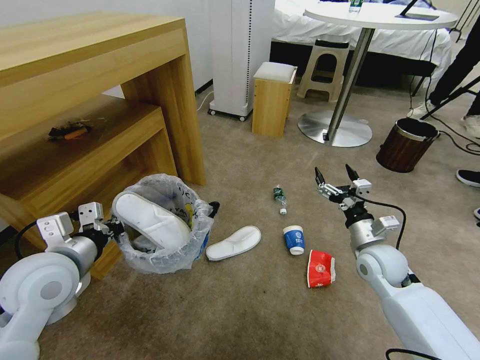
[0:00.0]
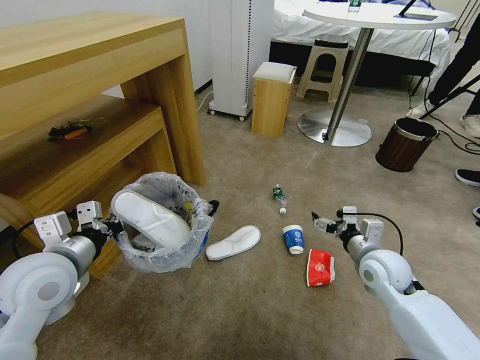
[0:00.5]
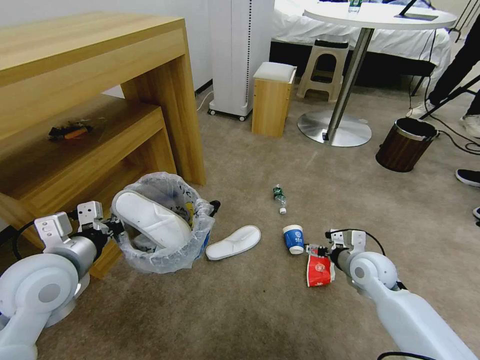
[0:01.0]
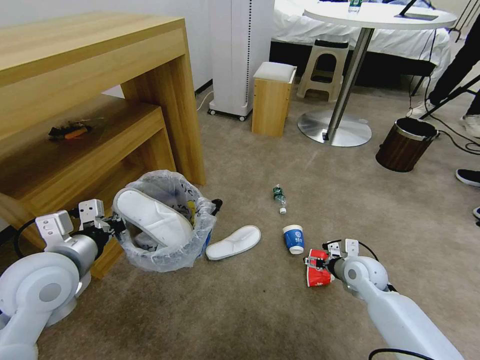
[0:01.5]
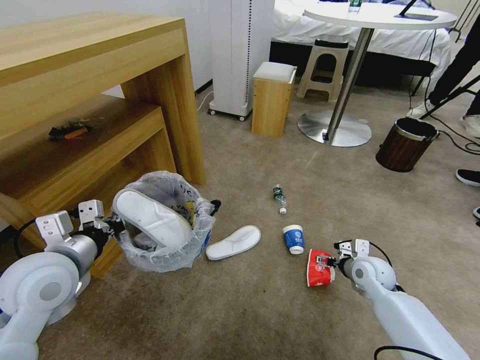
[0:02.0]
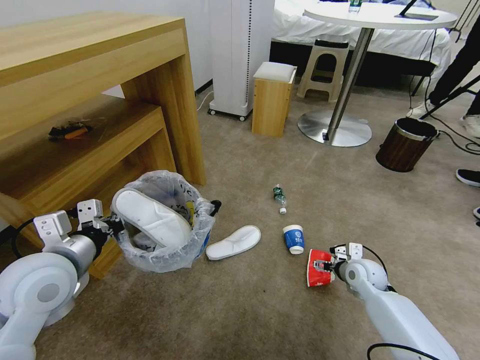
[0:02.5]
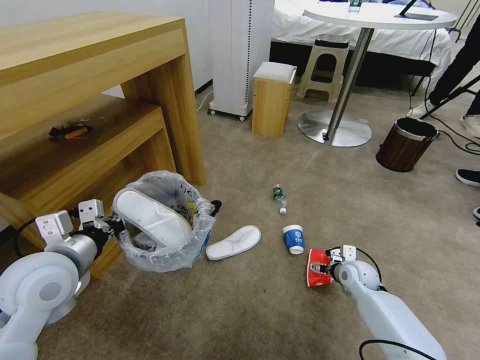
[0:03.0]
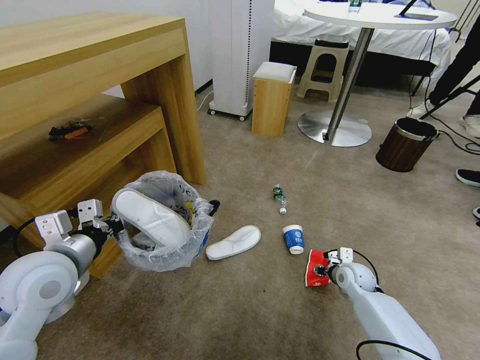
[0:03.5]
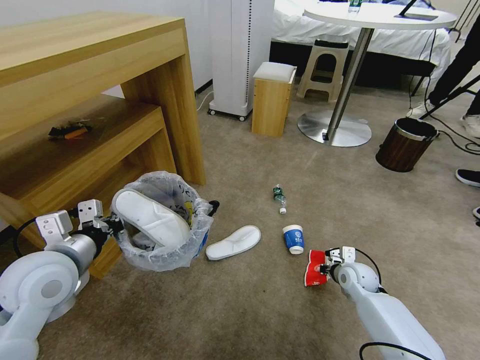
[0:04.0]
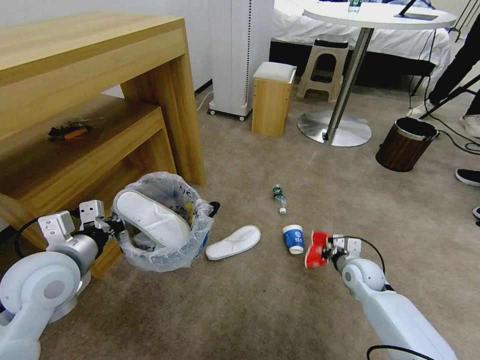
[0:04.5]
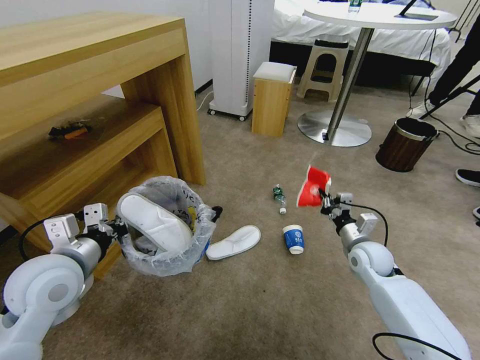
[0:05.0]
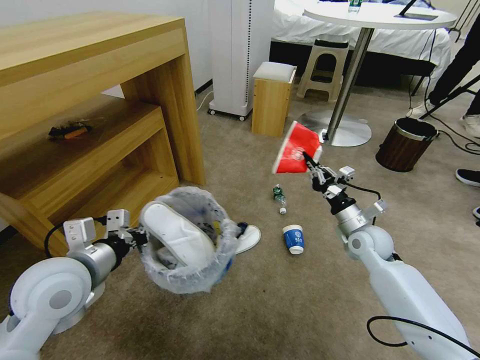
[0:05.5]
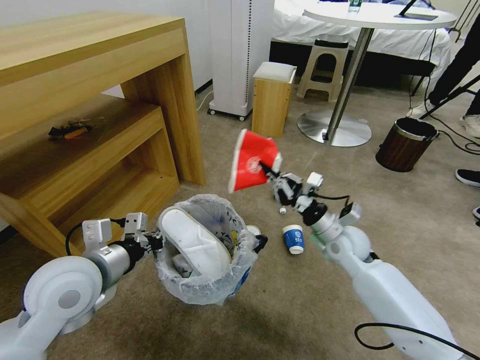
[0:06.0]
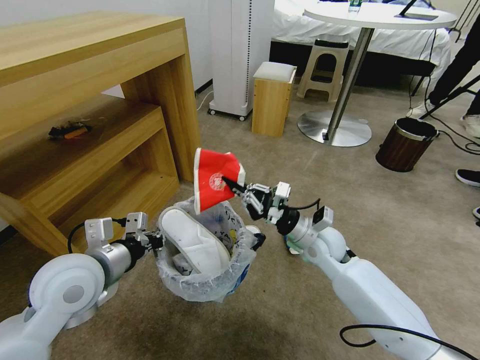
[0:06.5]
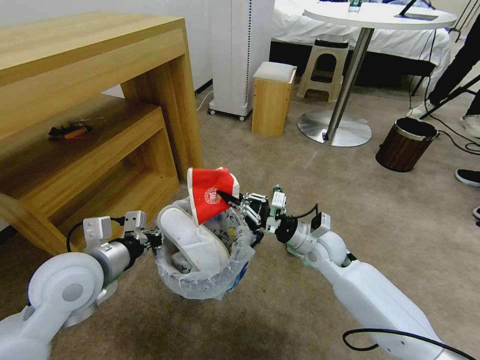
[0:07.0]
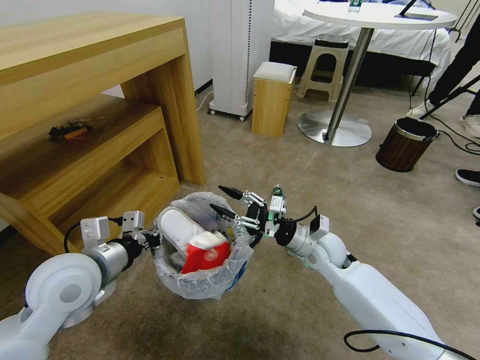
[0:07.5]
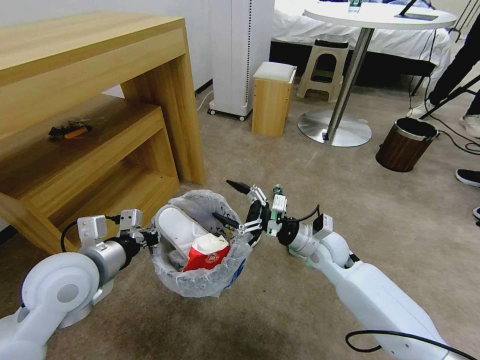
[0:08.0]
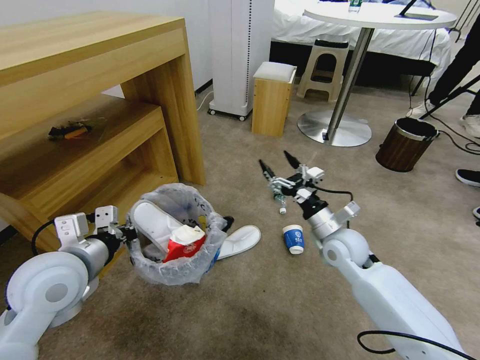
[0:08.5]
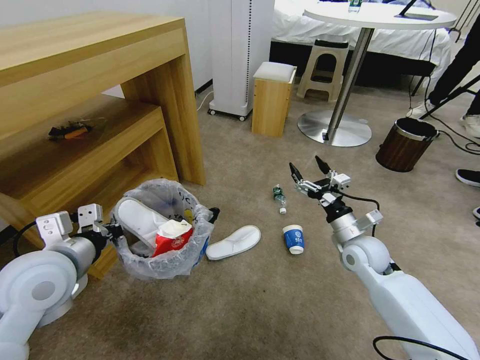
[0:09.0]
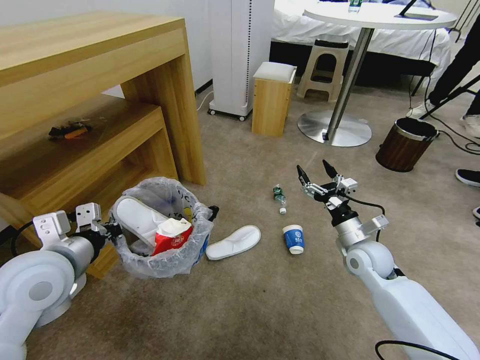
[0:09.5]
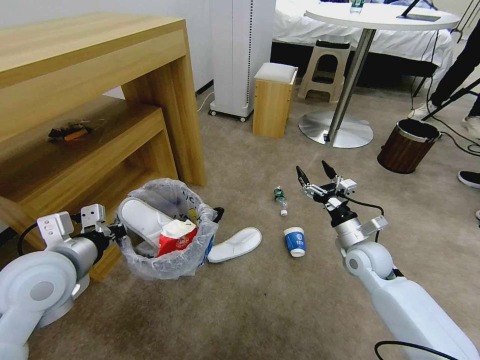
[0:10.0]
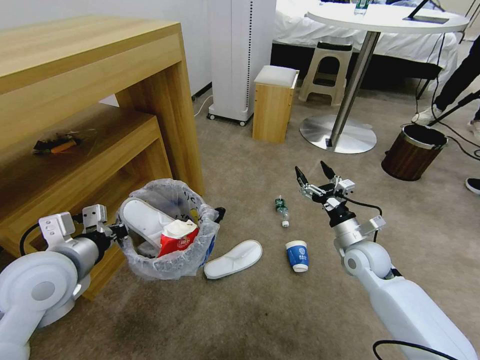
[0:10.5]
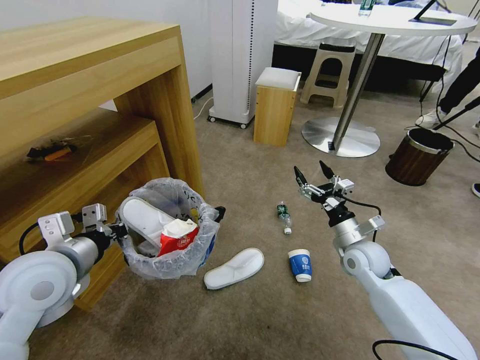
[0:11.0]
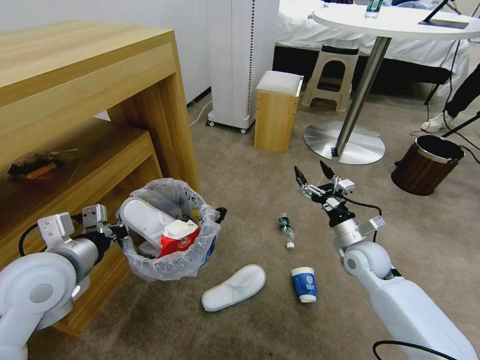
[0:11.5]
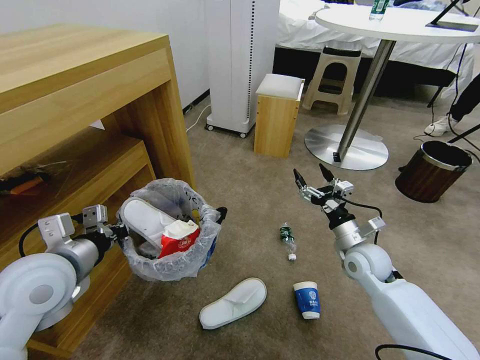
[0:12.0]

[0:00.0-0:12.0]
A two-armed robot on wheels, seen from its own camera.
Task of the whole recording: Pick up the trash bin and place the garbage on the floor into it.
0.0 to 2.0 s: The right gripper shifts approximately 10 cm downward.
2.0 to 4.0 s: The right gripper goes about 5 cm downward, and closes.
4.0 to 6.0 s: The right gripper moves upward and to the left, some 15 cm.
6.0 to 8.0 s: The right gripper opens its fingers.
8.0 to 10.0 s: The right gripper travels to the right by approximately 10 cm.

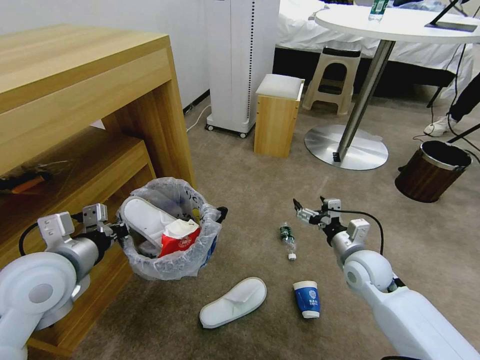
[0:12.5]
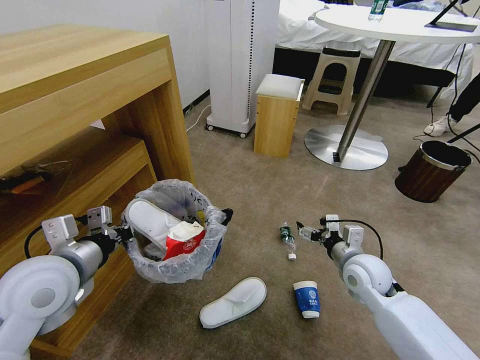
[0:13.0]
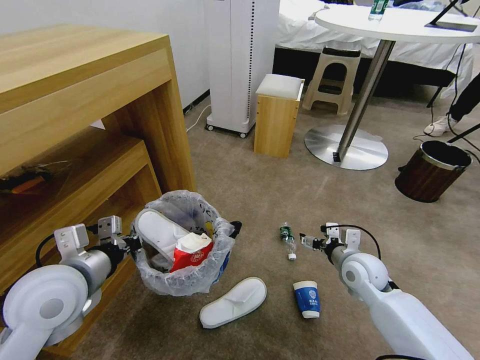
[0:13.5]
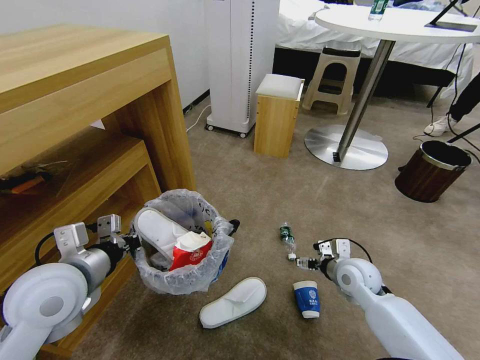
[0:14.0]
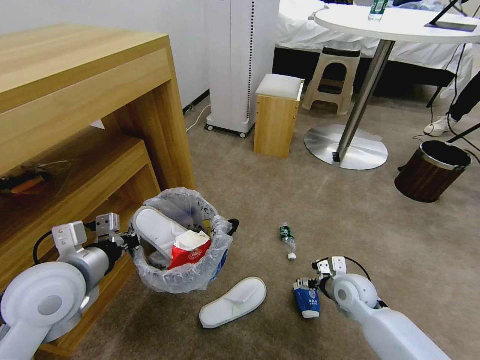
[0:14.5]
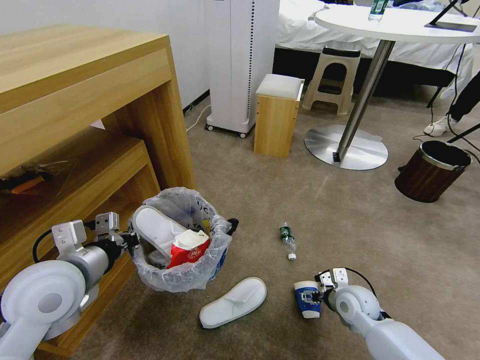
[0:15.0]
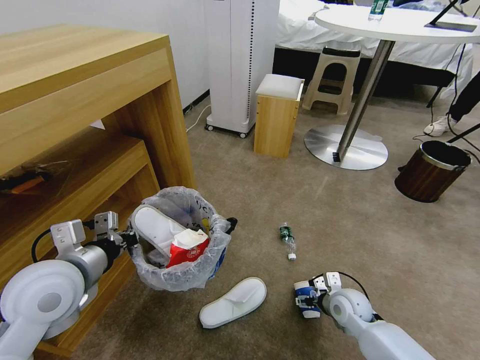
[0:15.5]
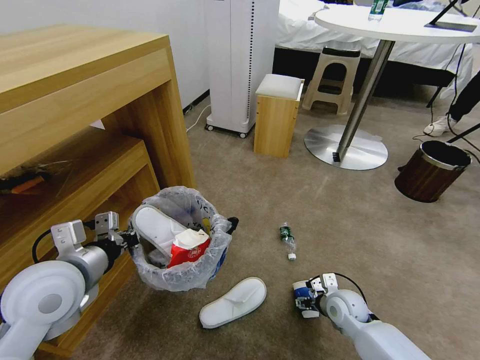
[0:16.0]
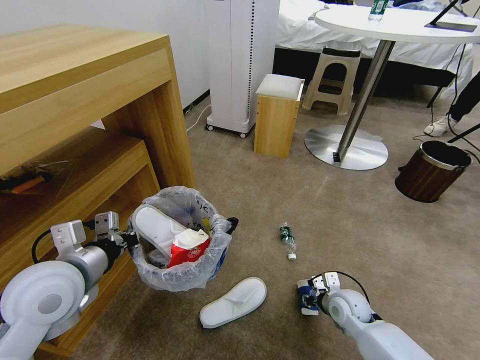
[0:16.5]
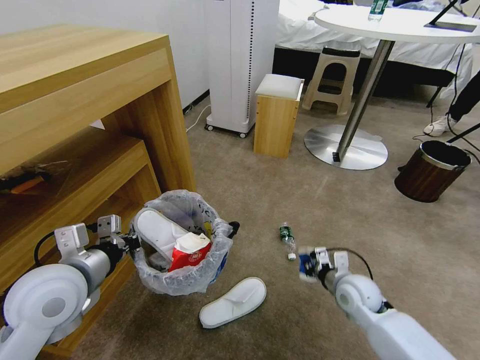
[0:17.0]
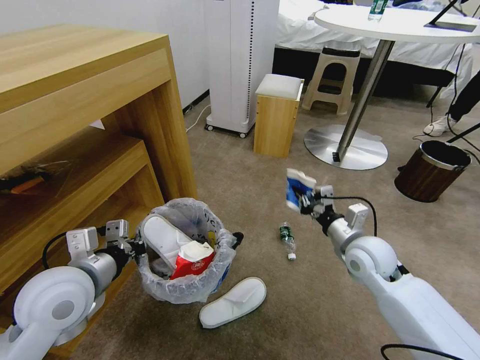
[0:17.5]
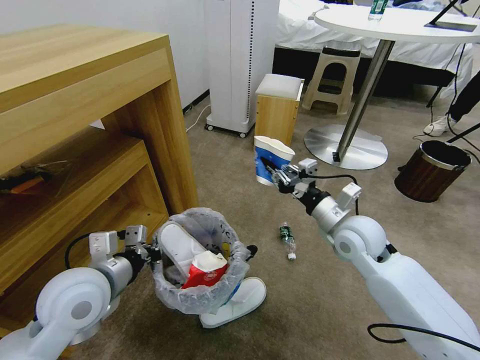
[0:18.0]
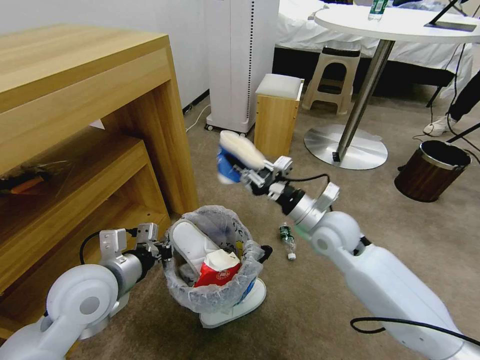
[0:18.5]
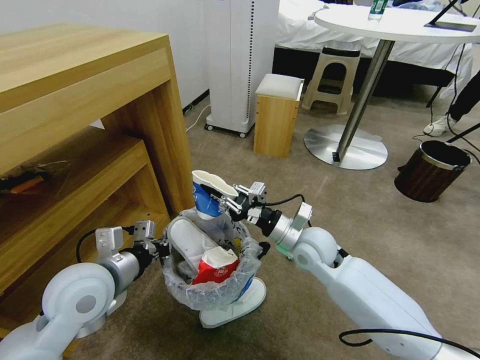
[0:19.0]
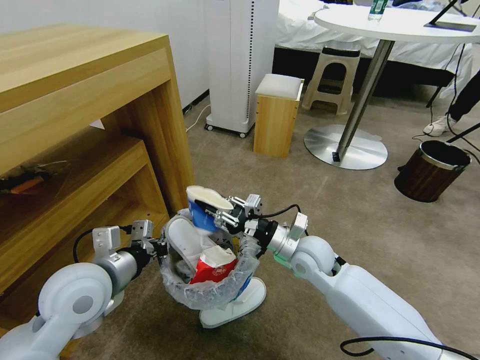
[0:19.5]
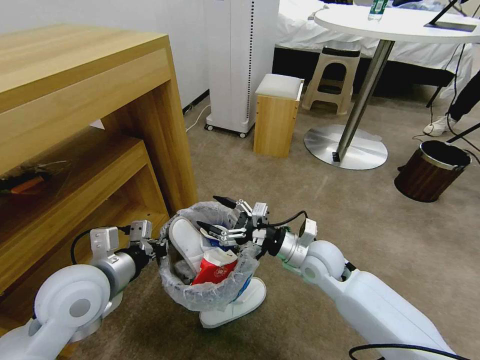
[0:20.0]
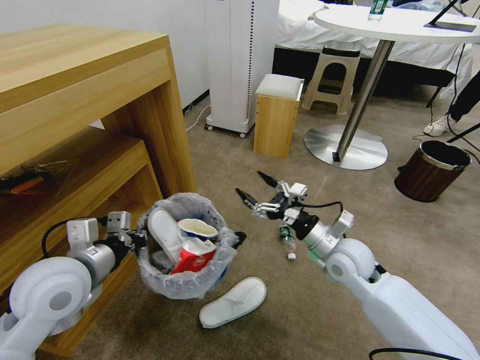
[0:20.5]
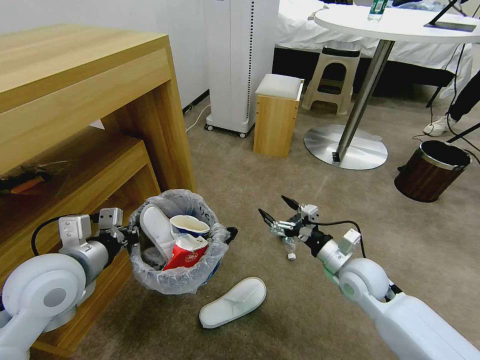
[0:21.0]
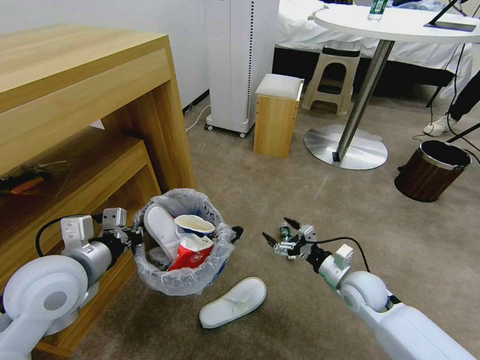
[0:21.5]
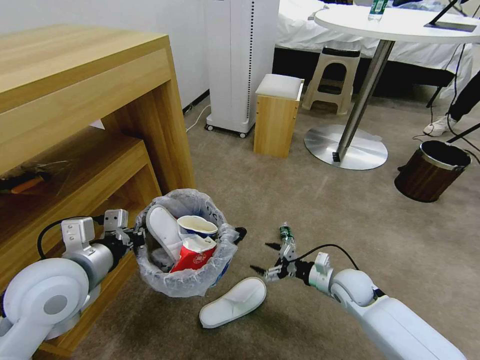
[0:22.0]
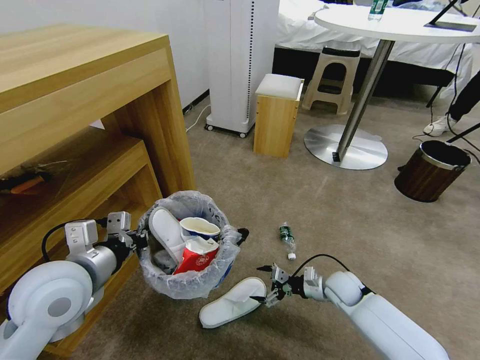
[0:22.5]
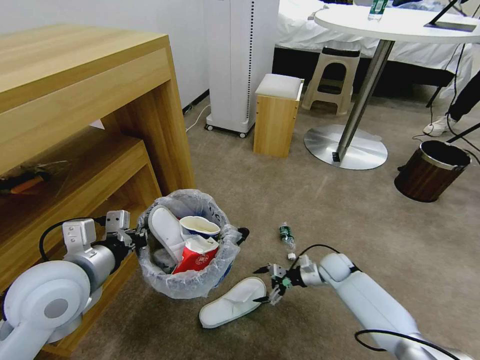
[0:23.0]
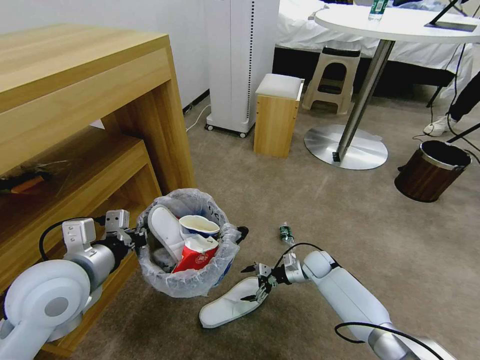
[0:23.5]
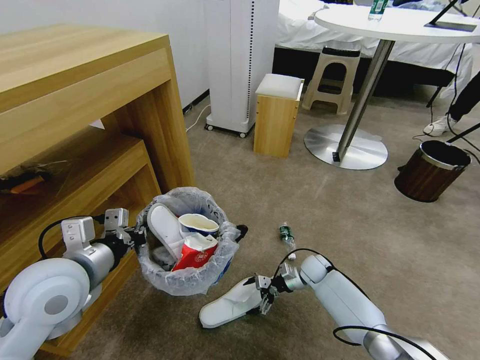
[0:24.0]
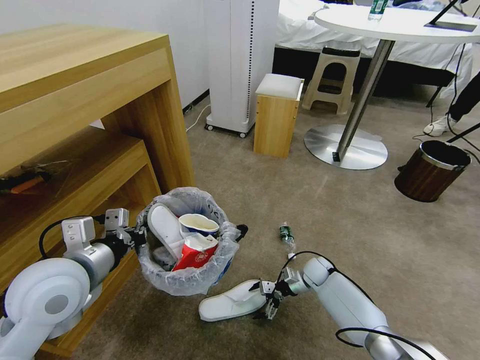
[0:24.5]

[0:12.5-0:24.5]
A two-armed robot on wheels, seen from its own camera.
Task of the whole recording: Pick up the trash bin and place the garbage on the floor into it.
12.5 to 14.5 s: The right gripper heads downward, covering some 10 cm.
14.5 to 16.5 s: The right gripper shifts by approximately 5 cm, and closes its fingers.
16.5 to 18.5 s: The right gripper moves upward, roughly 25 cm.
18.5 to 20.5 s: The right gripper shifts by about 5 cm, and opens up.
20.5 to 22.5 s: The right gripper shifts about 20 cm downward and to the right.
22.5 to 24.5 s: The right gripper goes some 10 cm forward and downward.

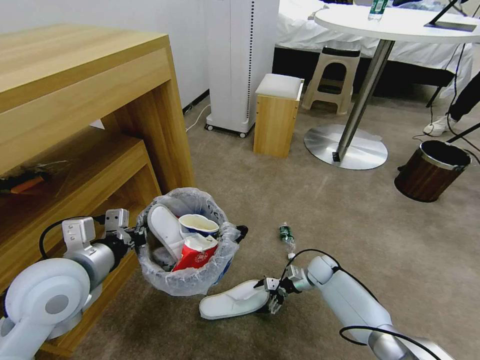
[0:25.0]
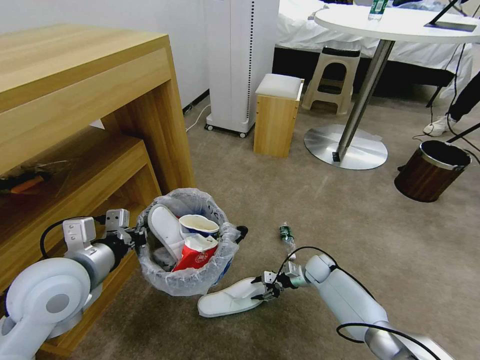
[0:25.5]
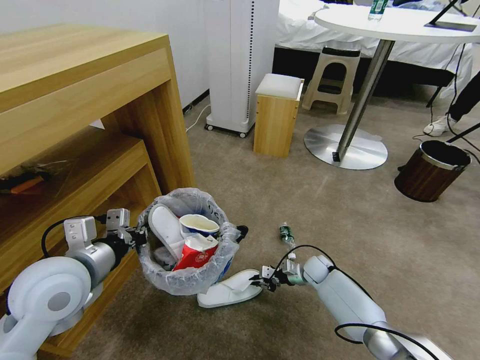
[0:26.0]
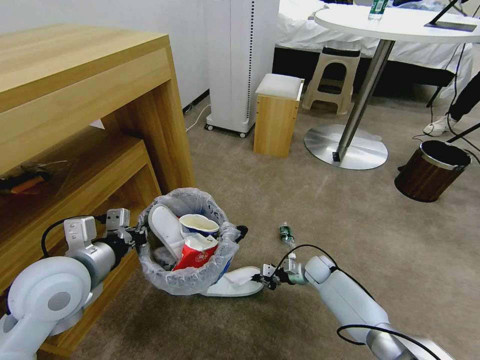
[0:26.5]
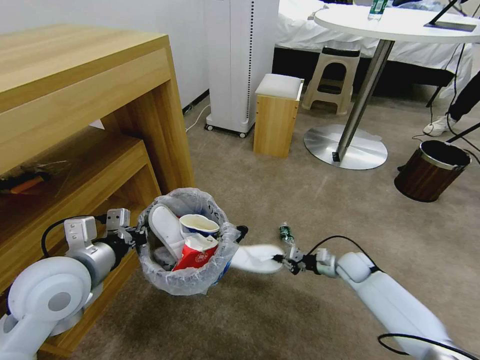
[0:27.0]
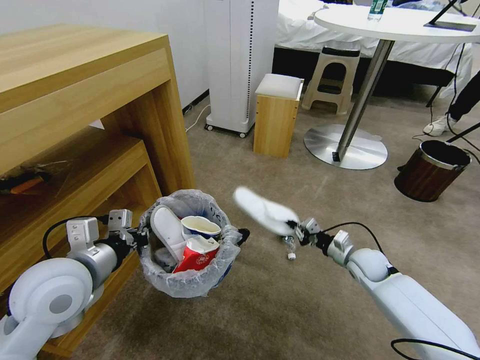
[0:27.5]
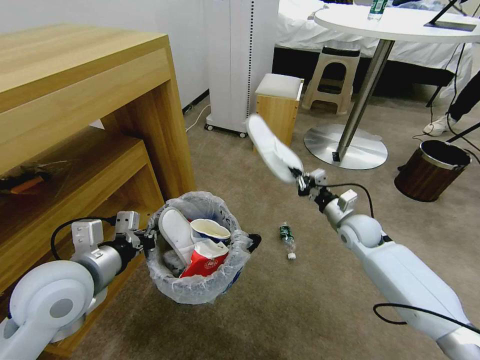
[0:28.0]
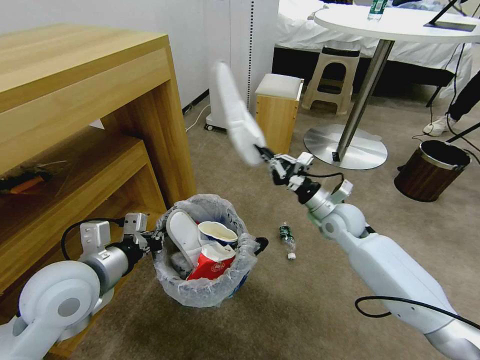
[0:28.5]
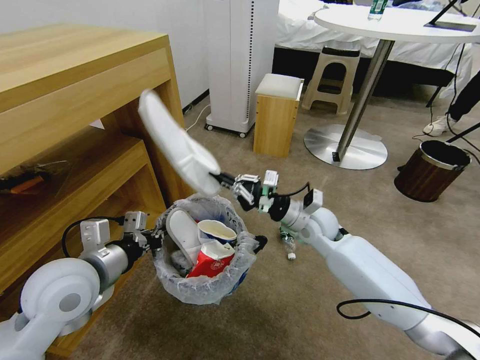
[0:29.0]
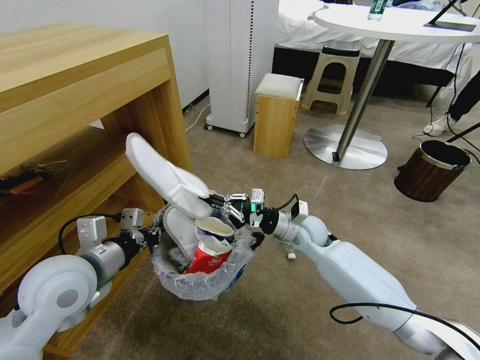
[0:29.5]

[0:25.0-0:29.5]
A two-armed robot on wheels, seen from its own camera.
Task of the whole recording: Pick up the trash bin and place the garbage on the floor into it.
25.0 to 27.0 s: The right gripper travels to the right and upward by about 10 cm, and closes up.
27.0 to 29.5 s: The right gripper shifts some 25 cm to the left and upward.
